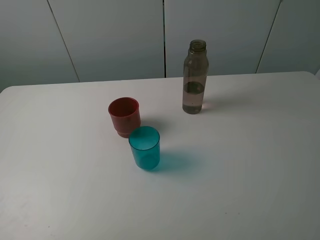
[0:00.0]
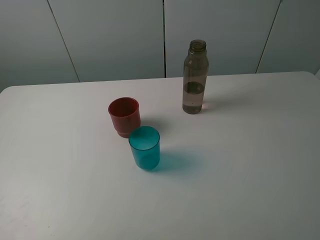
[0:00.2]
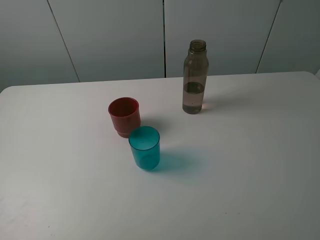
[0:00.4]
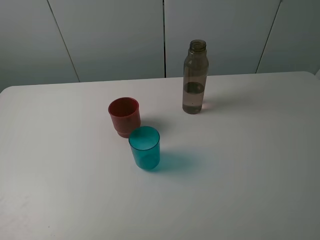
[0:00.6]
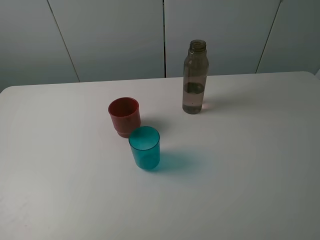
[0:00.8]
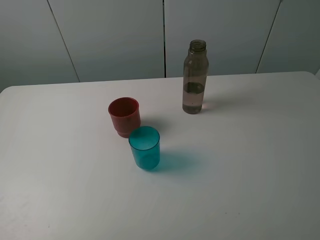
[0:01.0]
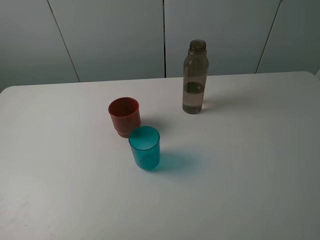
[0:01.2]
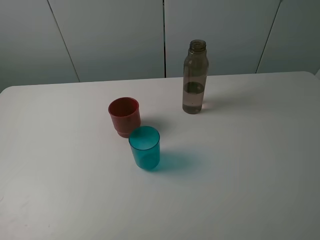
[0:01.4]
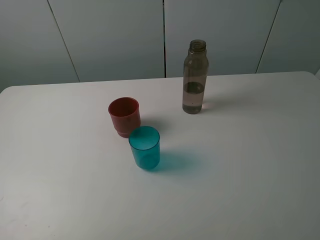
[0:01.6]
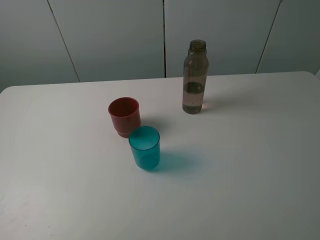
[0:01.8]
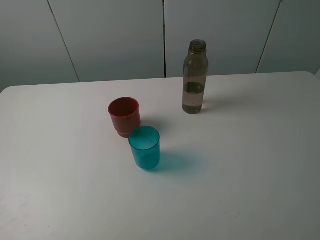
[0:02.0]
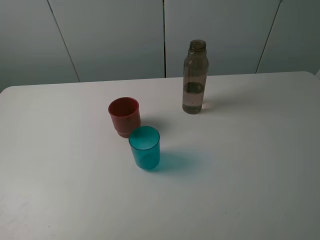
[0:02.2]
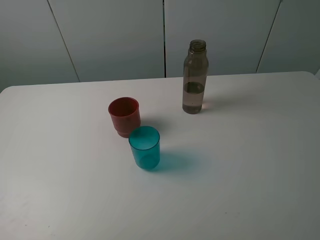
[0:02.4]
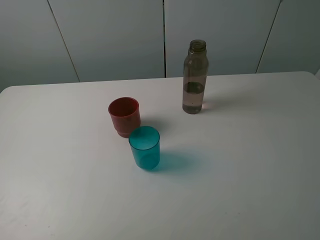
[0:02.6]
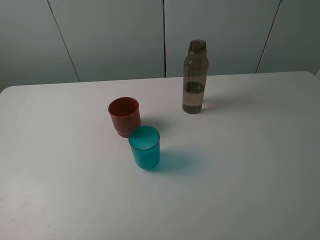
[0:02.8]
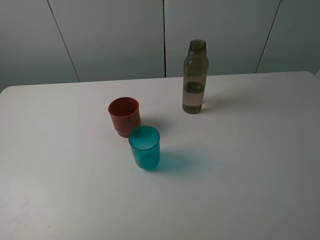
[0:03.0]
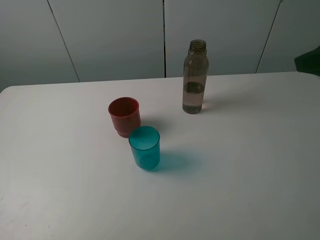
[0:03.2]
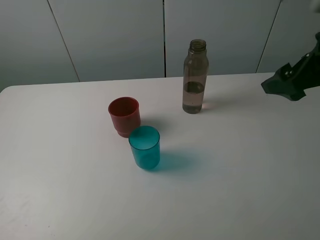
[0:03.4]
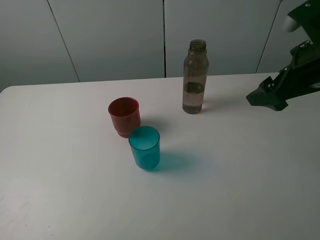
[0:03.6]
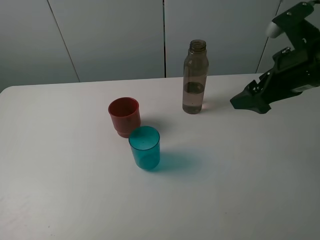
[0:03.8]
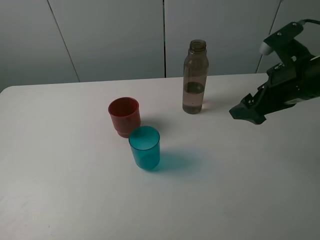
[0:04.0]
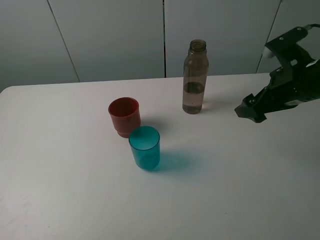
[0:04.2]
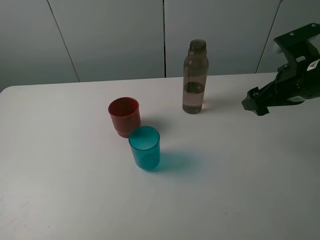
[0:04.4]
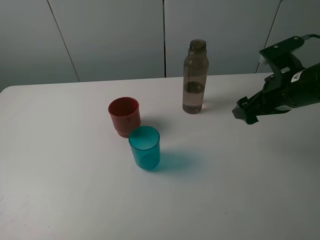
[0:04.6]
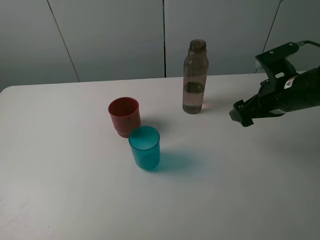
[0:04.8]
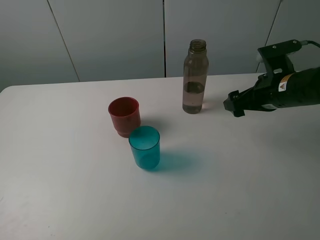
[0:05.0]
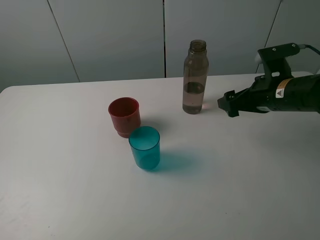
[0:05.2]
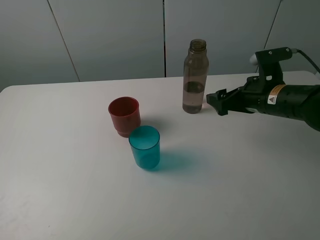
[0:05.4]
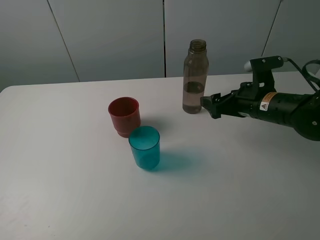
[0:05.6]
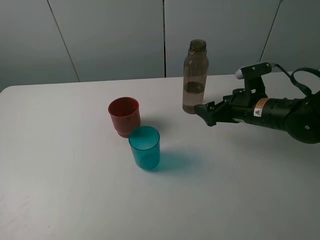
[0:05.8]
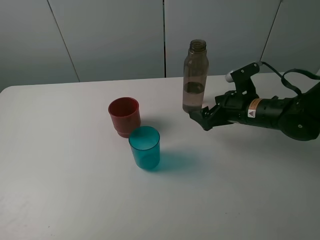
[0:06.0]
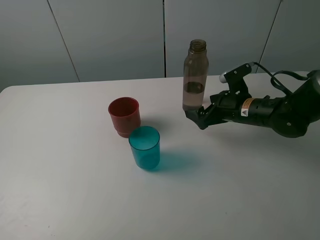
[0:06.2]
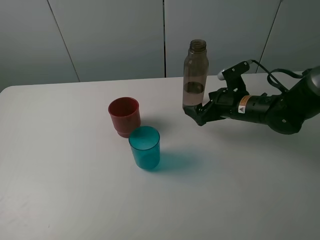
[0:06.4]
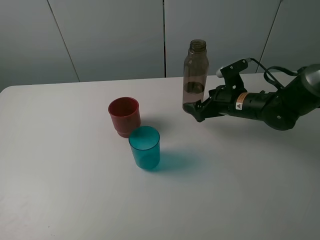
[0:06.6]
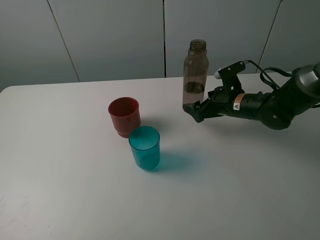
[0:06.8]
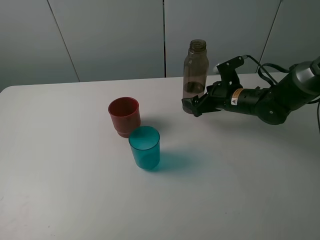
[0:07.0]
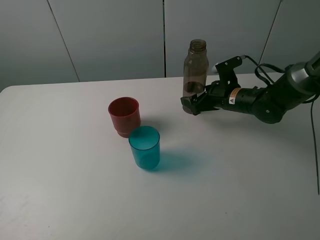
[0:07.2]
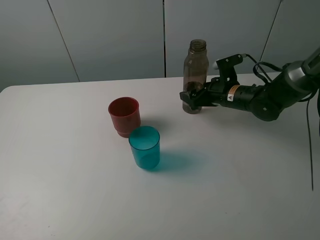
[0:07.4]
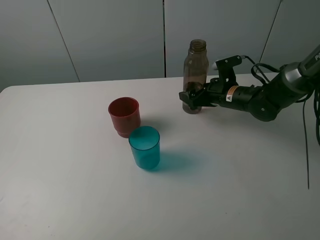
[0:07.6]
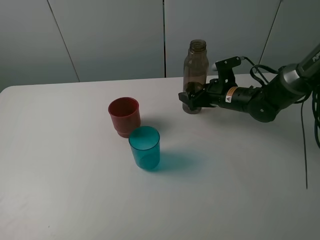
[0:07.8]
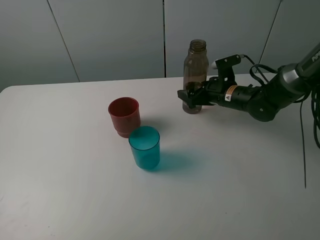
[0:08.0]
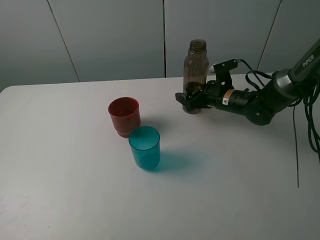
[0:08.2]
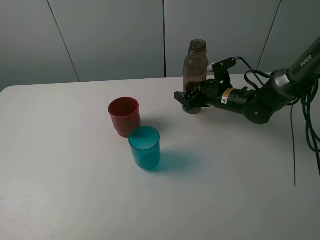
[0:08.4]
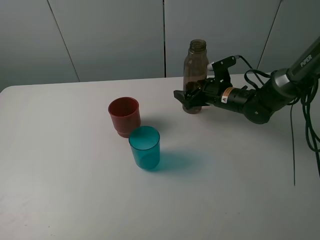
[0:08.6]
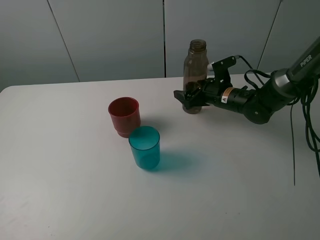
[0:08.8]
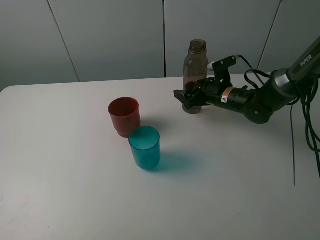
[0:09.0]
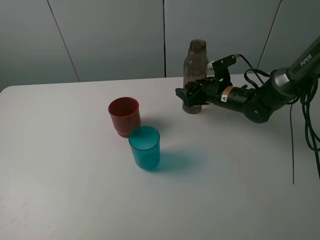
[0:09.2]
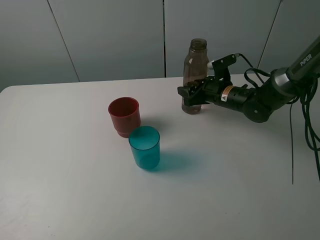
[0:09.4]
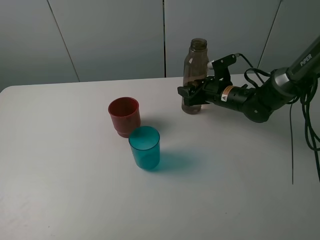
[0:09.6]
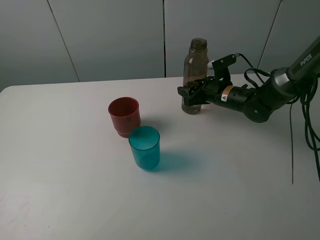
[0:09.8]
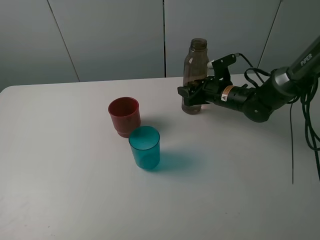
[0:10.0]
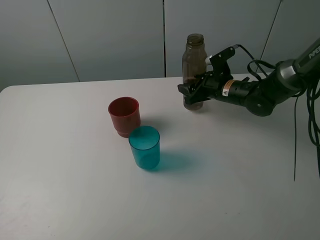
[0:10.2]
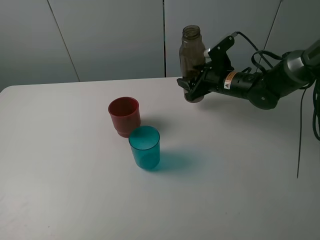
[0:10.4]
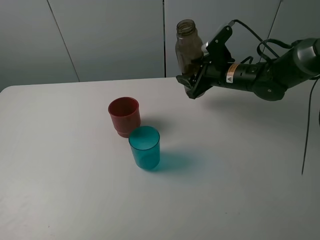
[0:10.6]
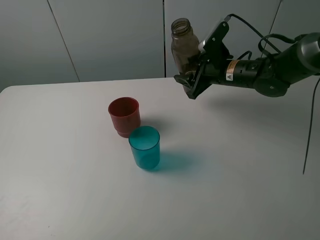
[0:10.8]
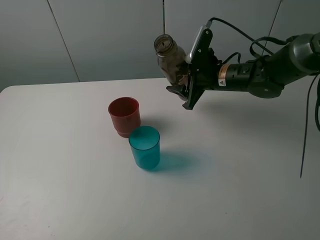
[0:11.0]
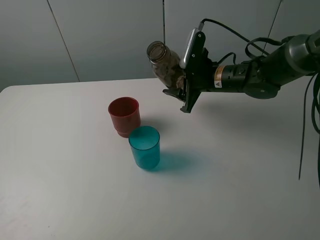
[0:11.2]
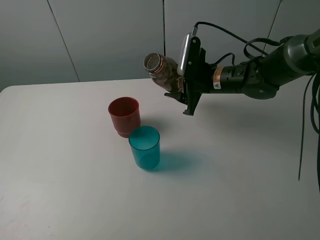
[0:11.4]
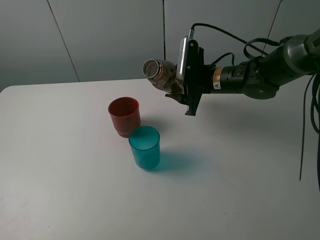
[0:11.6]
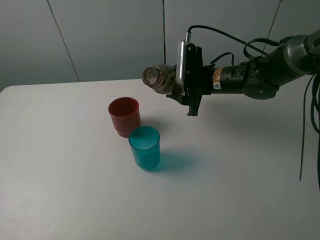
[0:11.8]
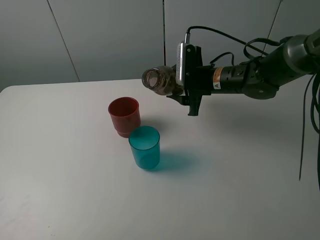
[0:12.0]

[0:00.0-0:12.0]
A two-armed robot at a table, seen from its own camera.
Task of the whole recording: pick up the bottle and pour water into the cup, then pick up the cup containing water and pour it into another cup.
Step, 0:00.0 to 0:09.2: Grasp the brown bottle with the right gripper.
0:00.0 to 0:01.6: The two grippers keep their place.
0:03.0 to 0:04.4: The right gripper shifts roughly 20 cm downward and forward.
0:04.4 to 0:06.0: The right gripper goes approximately 10 cm downward and to the left.
0:06.0 to 0:07.6: The right gripper heads forward, covering about 10 cm.
0:07.6 to 0:09.0: The grippers stay close to where they were, moving slightly.
0:09.0 to 0:10.4: The right gripper closes its fingers.
0:10.4 to 0:12.0: The right gripper shifts by approximately 5 cm.

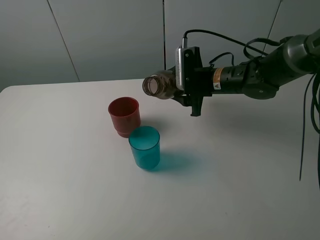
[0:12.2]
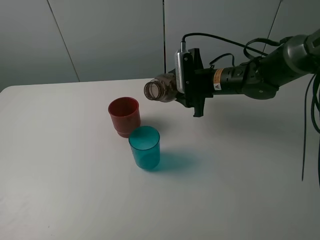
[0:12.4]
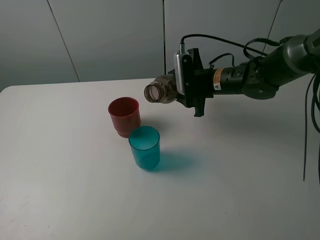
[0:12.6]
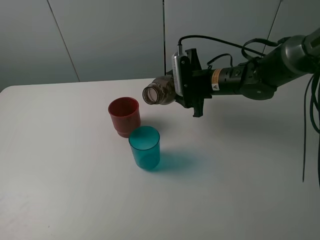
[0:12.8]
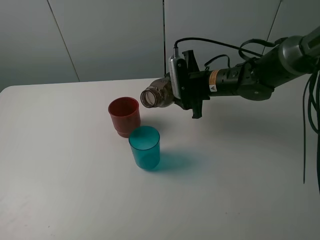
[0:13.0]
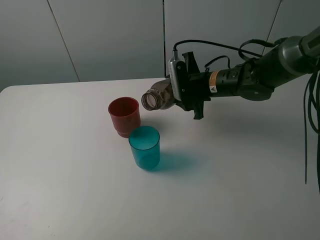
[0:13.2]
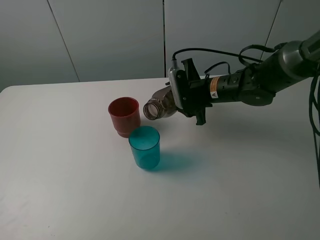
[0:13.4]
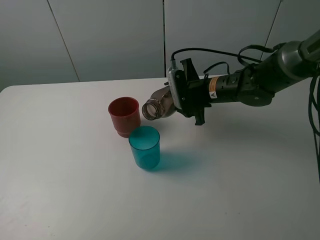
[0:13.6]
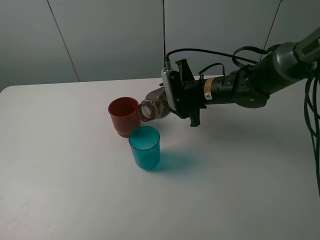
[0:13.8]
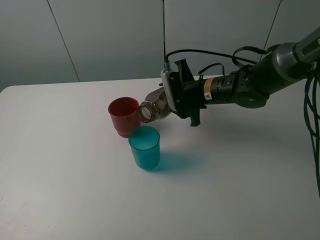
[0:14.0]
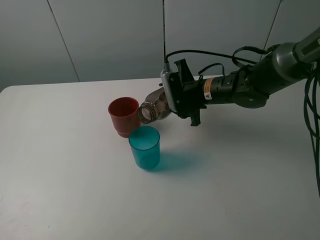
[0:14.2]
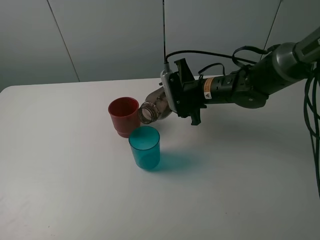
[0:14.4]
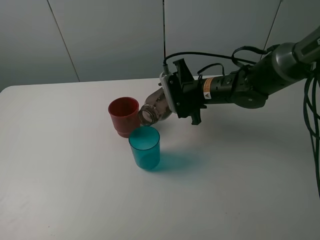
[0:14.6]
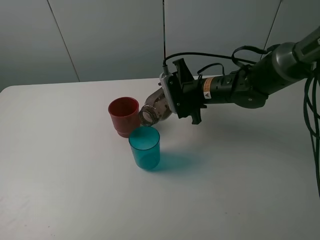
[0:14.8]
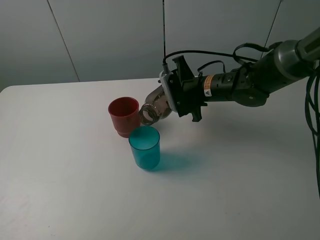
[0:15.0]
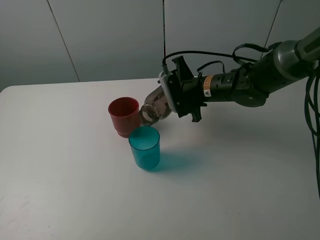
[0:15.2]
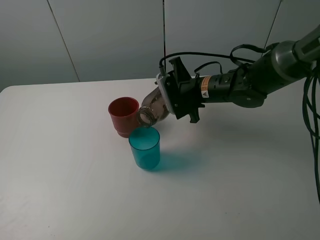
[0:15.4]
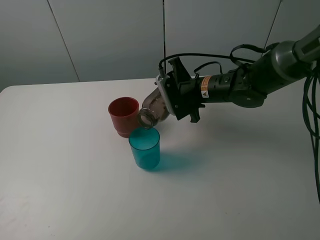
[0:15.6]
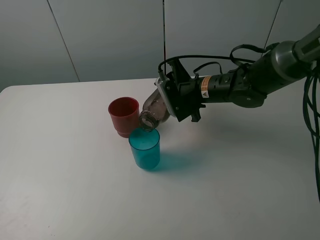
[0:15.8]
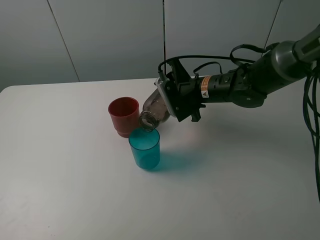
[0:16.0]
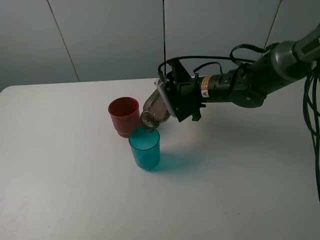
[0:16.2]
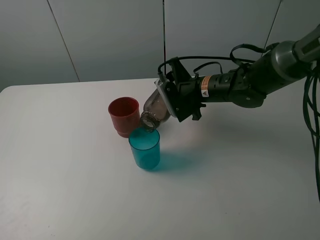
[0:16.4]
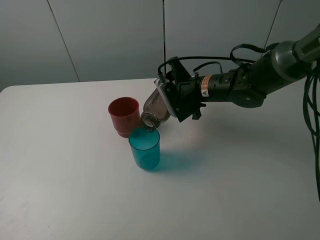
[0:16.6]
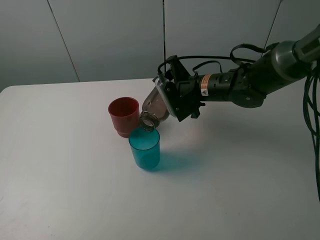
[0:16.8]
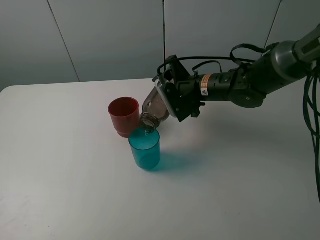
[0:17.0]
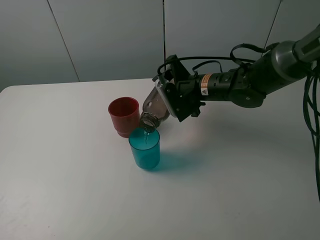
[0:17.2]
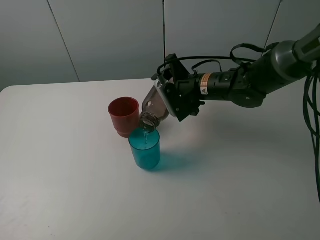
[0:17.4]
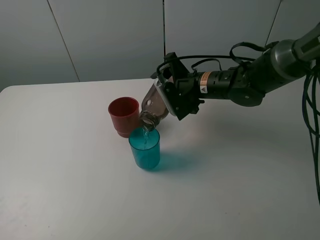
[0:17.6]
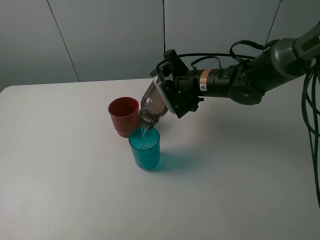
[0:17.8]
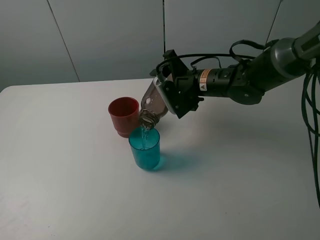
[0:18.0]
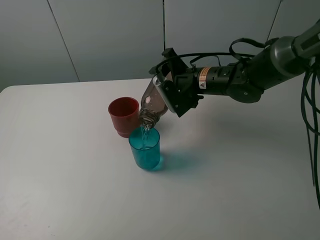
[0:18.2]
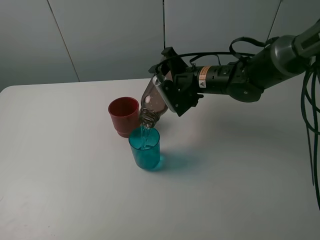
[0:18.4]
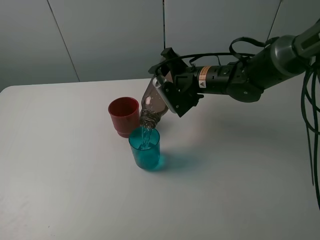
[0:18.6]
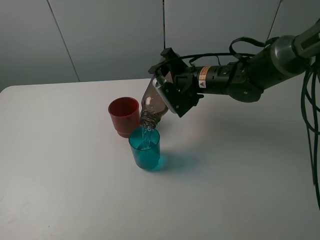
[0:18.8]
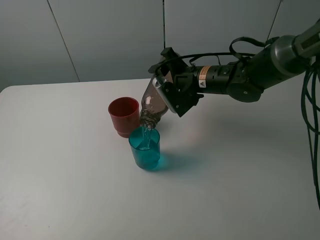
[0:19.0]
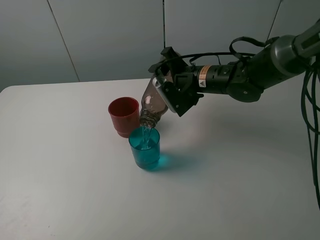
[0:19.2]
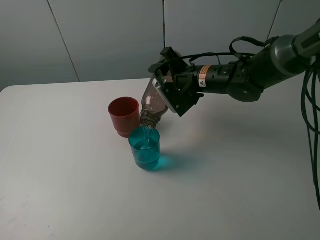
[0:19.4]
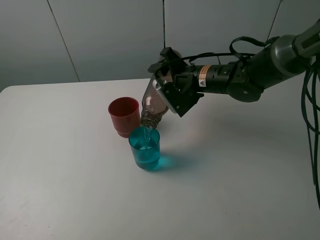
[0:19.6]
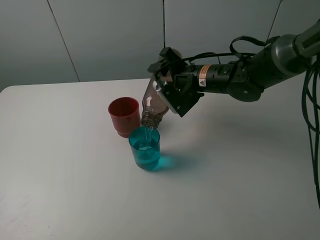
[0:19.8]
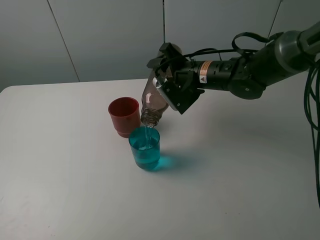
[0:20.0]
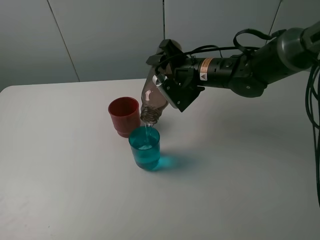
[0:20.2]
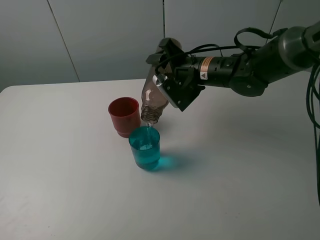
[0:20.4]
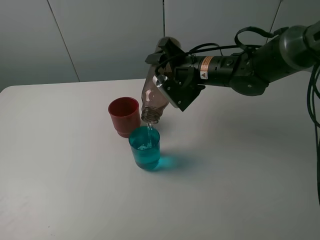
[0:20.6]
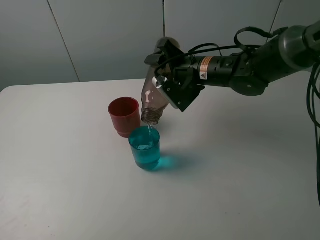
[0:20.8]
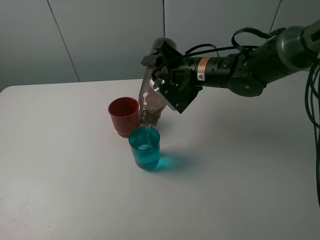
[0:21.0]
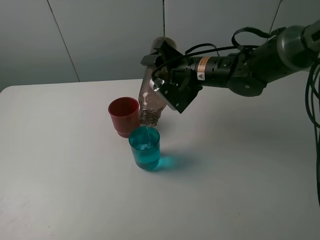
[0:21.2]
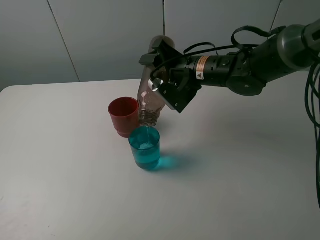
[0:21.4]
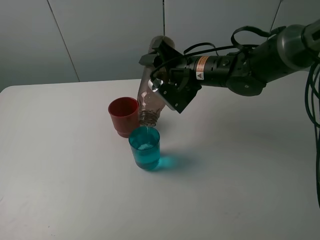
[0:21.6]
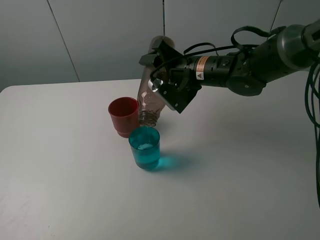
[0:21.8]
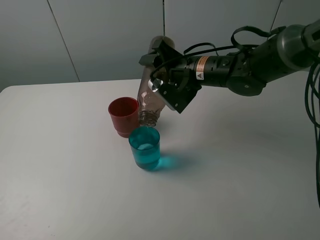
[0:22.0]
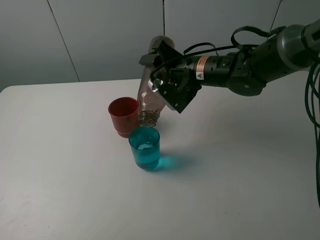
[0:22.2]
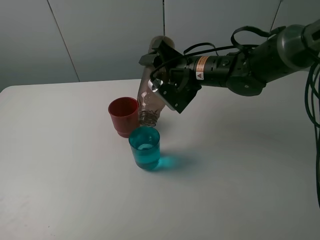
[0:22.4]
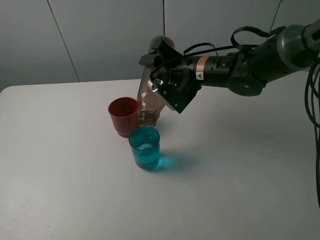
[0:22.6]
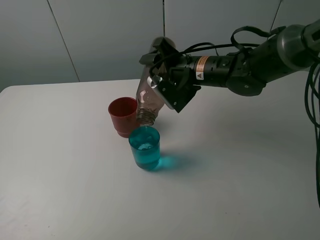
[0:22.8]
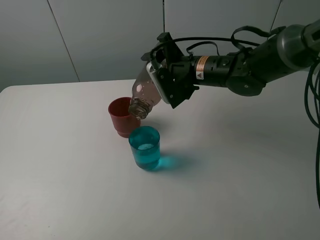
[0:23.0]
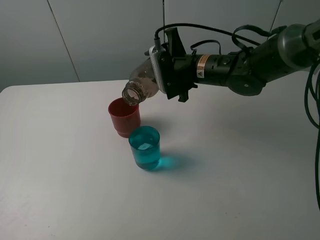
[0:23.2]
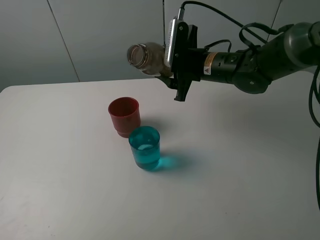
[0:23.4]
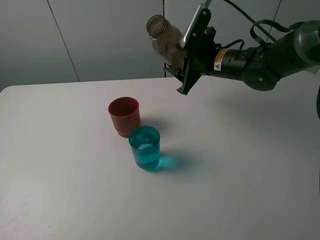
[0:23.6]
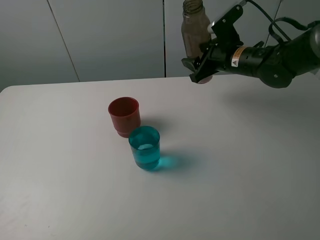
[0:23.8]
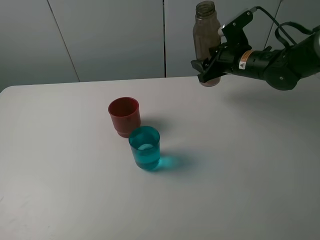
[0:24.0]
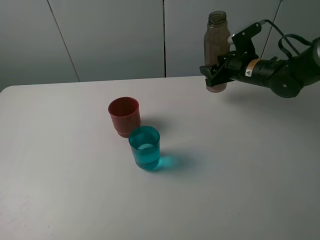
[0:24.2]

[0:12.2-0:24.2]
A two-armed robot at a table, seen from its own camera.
Task of the whole recording: pick up the bottle and pour water into the cup, then pick up the cup containing water and pour it into another cup.
Step, 0:12.2 to 0:22.8: Pour water from brown bottle to blue cup with the right gripper.
0:12.2 to 0:15.2: The grippers stay close to where they were, moving slightly.
0:15.2 to 0:18.2: There are only small adjustments of the grippers.
0:18.2 to 0:21.2: The grippers make only small movements.
0:21.2 to 0:22.6: Neither gripper changes place.
0:22.6 to 0:24.2: The right gripper is displaced to the right and forward by roughly 15 cm.
